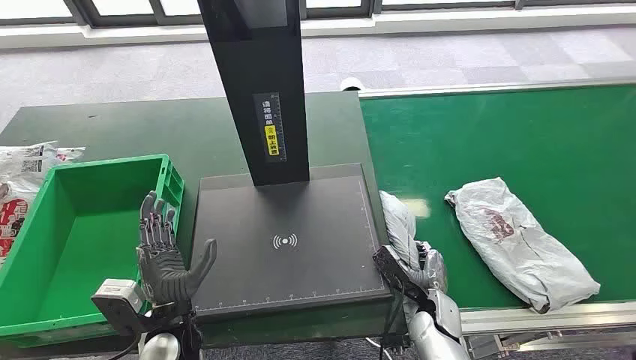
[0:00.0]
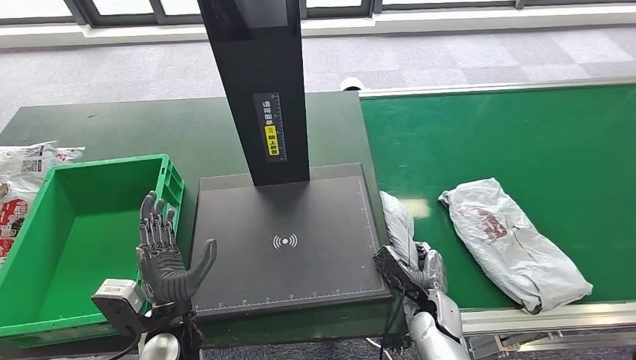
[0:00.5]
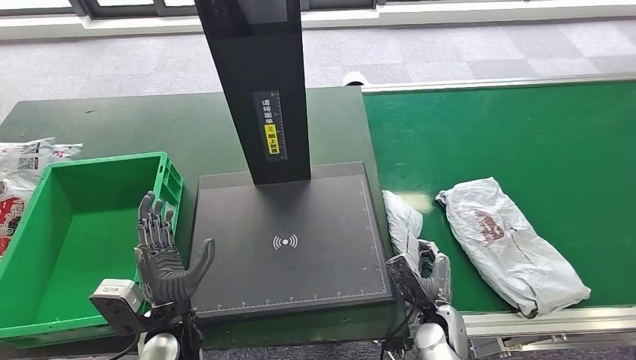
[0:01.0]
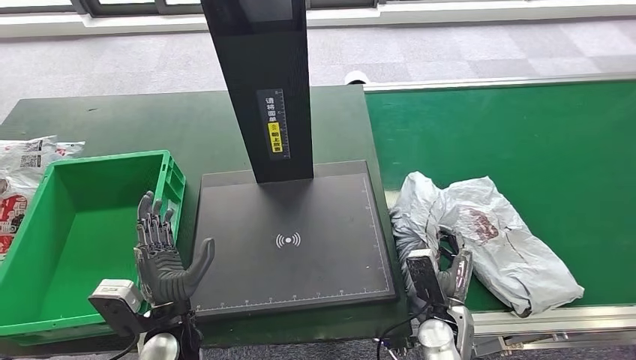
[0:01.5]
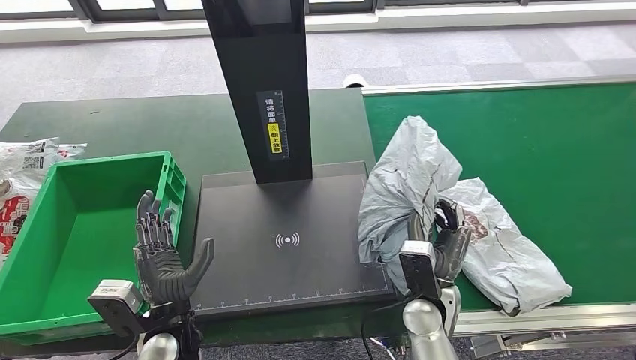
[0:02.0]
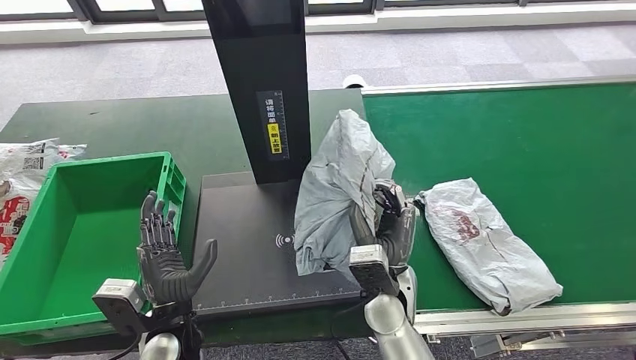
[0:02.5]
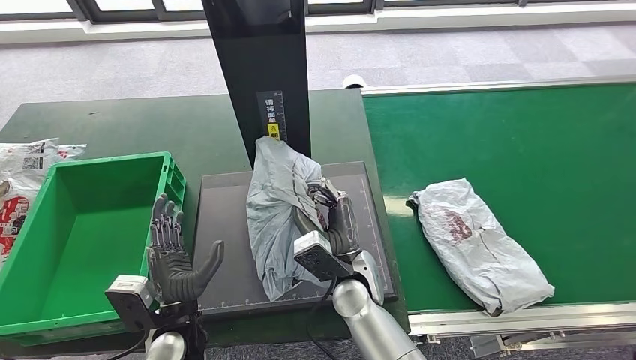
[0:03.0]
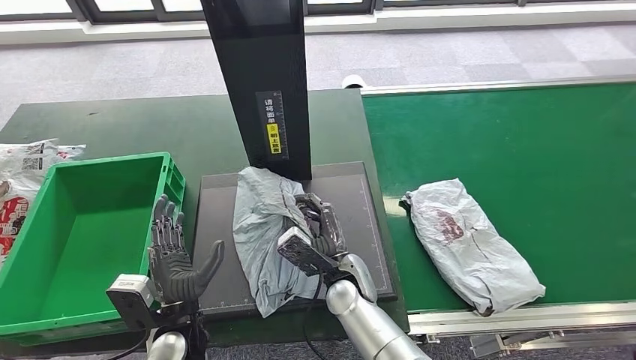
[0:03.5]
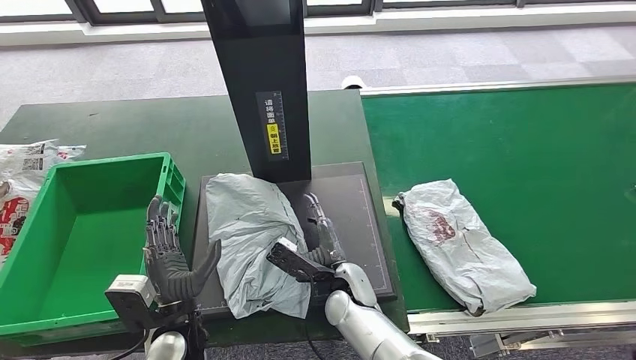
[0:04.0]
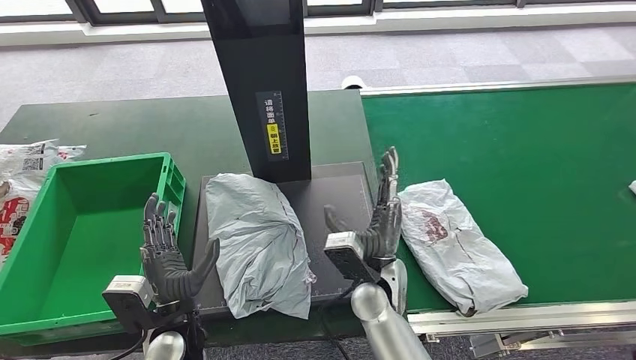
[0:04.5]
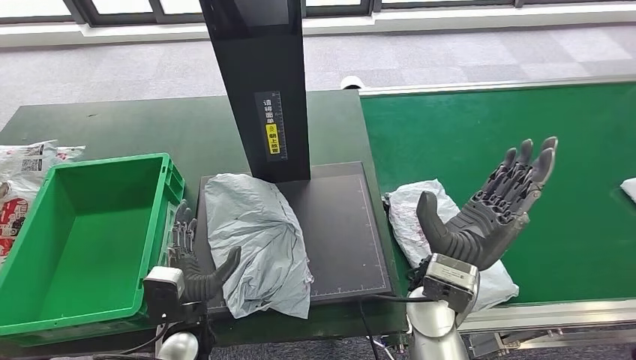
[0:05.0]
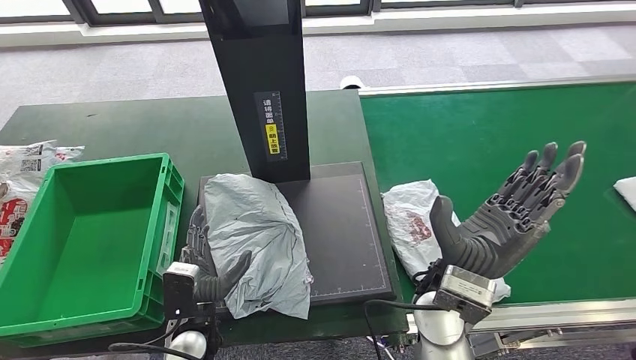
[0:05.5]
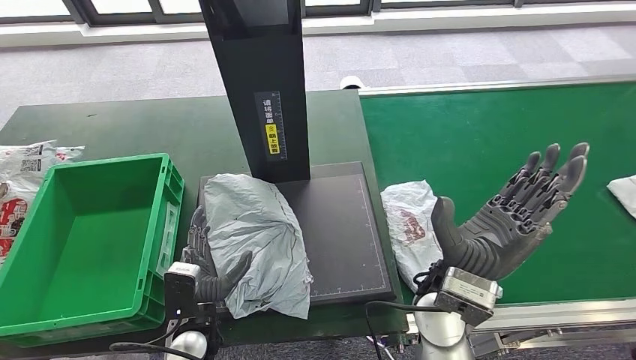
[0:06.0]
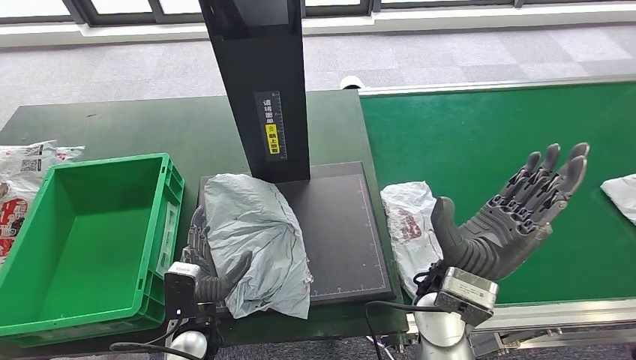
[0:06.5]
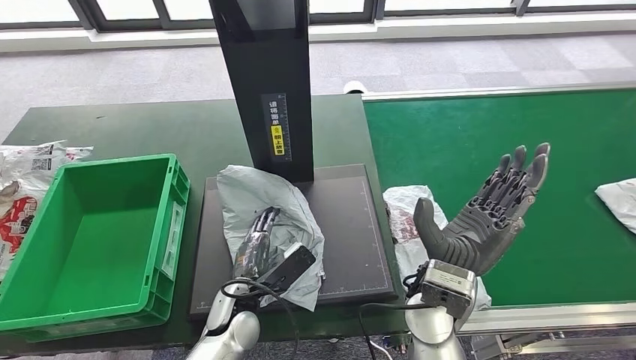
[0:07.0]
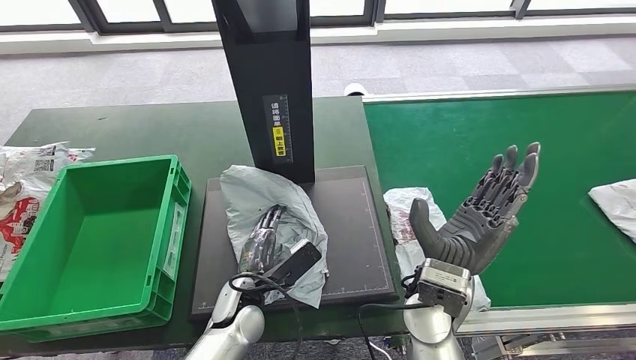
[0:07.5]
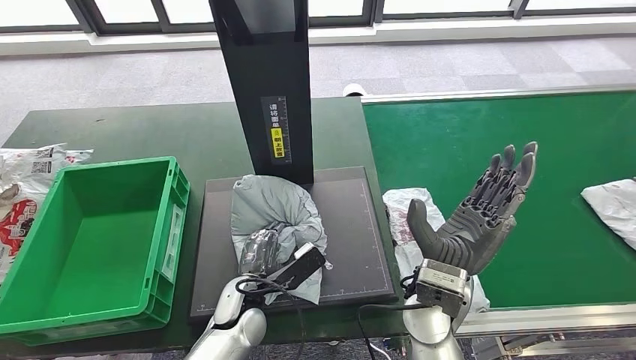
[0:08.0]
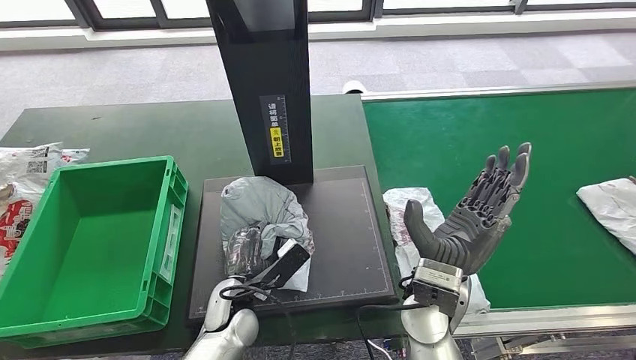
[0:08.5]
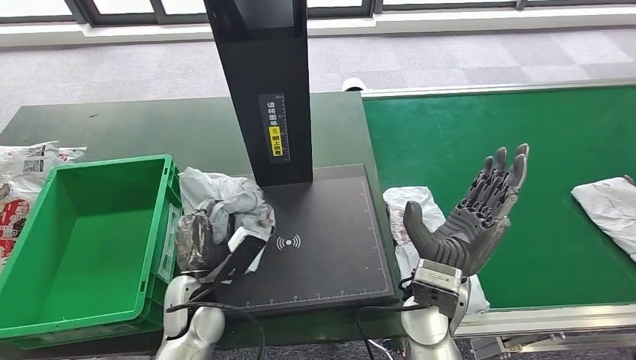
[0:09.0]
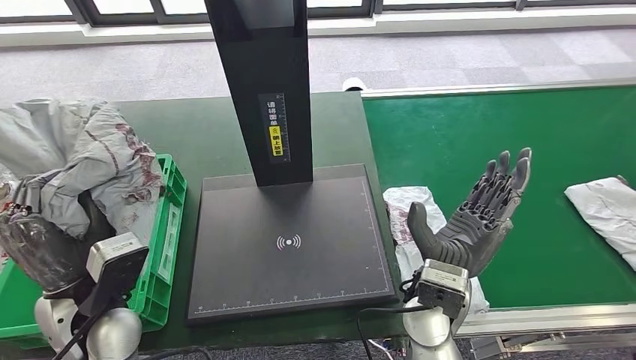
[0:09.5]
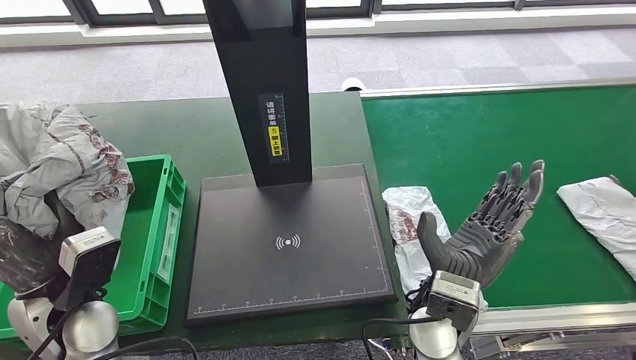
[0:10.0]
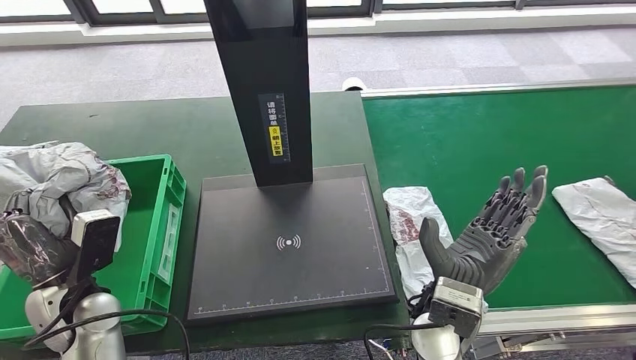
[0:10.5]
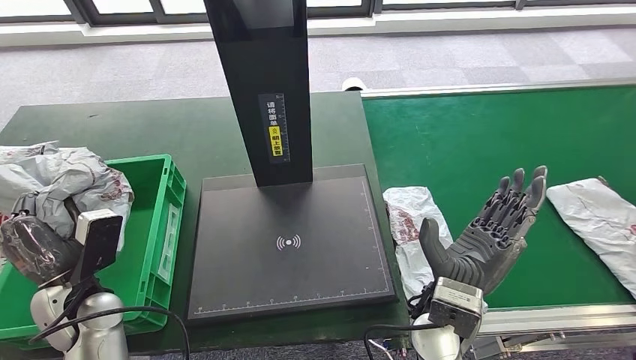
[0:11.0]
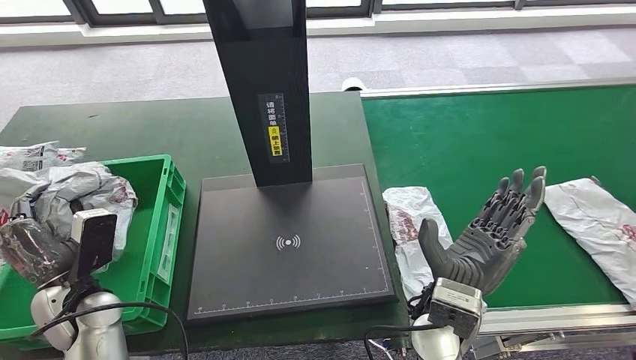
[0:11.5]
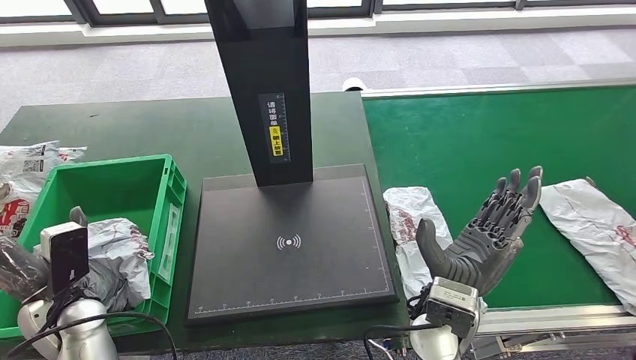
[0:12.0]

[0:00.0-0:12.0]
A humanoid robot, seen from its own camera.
Step, 0:00.0 to 0:01.5: Take the parcel off the conveyor belt.
Step, 0:02.0 to 0:04.0: Place the parcel onto the inbound machine.
Step, 0:09.0 to 0:10.5: Pick up the parcel from the inbound machine.
0:04.0 to 0:06.0: The right hand is displaced upward and to the right by about 20 cm.
0:10.0 to 0:12.0: The left hand goes roughly 10 cm downward and to the left.

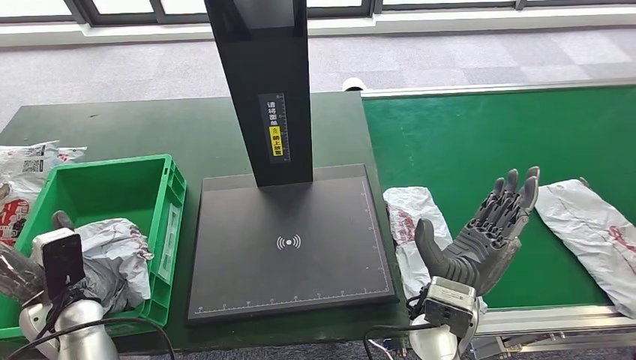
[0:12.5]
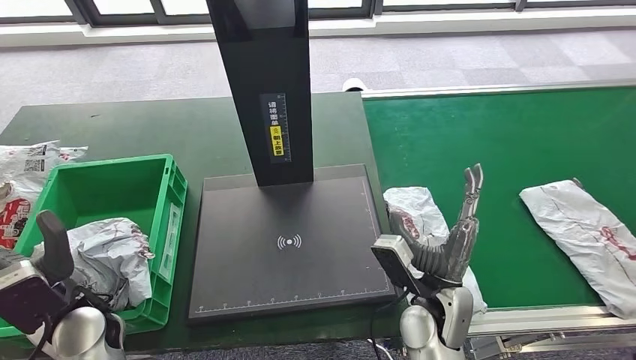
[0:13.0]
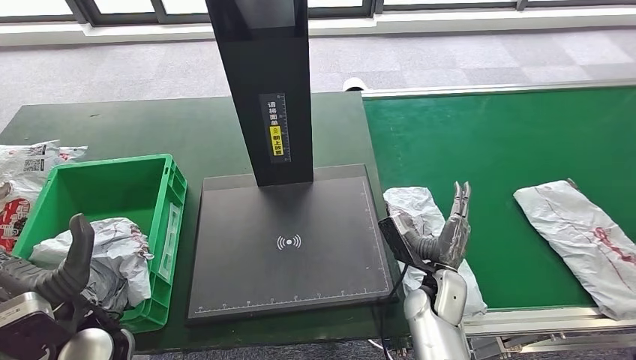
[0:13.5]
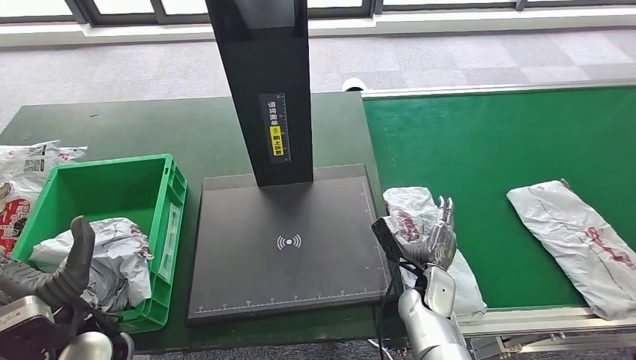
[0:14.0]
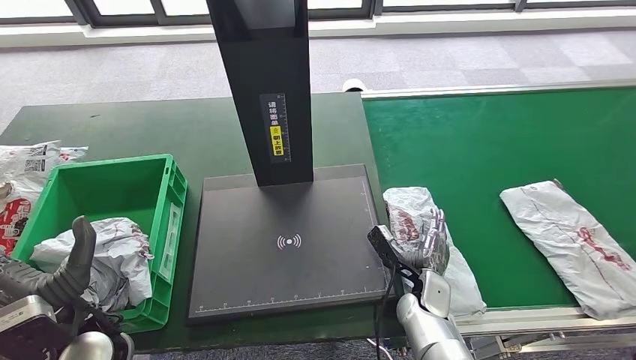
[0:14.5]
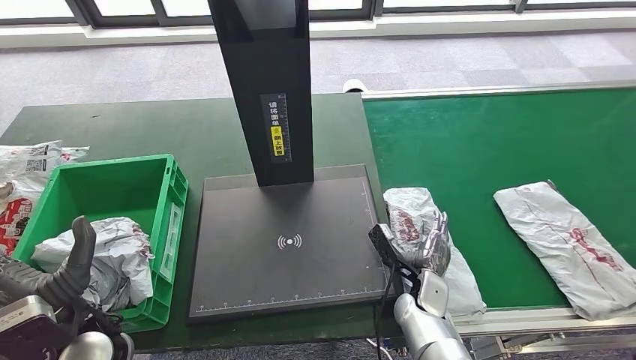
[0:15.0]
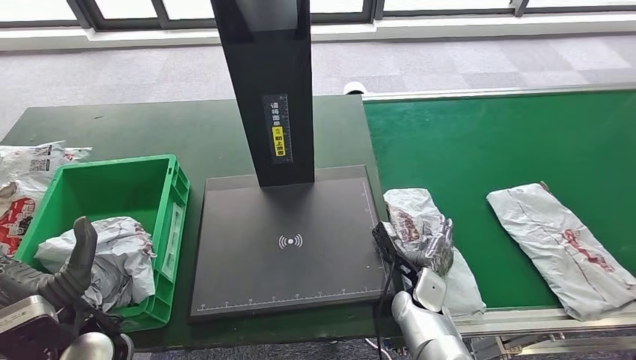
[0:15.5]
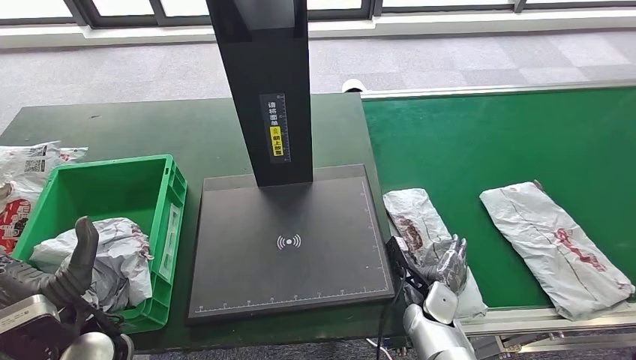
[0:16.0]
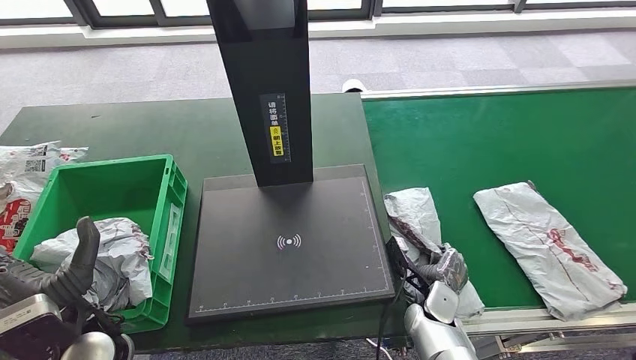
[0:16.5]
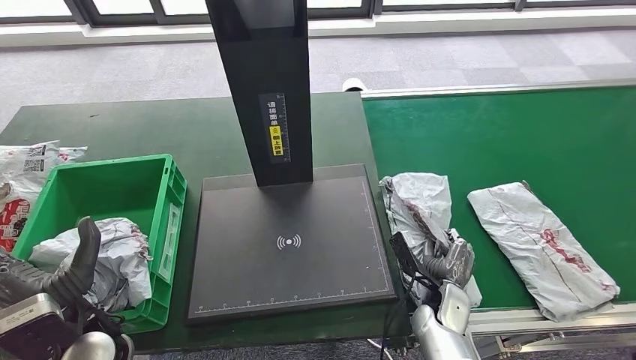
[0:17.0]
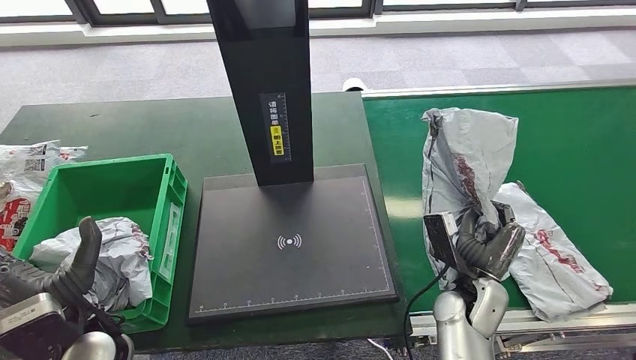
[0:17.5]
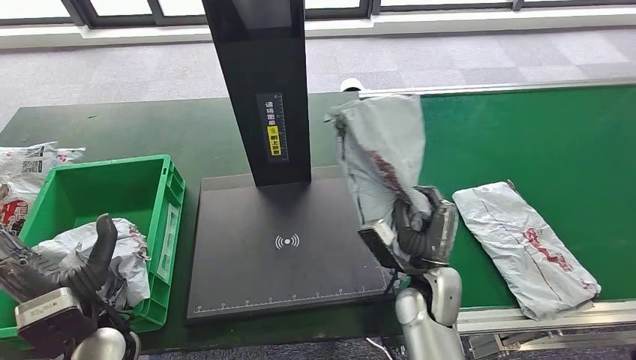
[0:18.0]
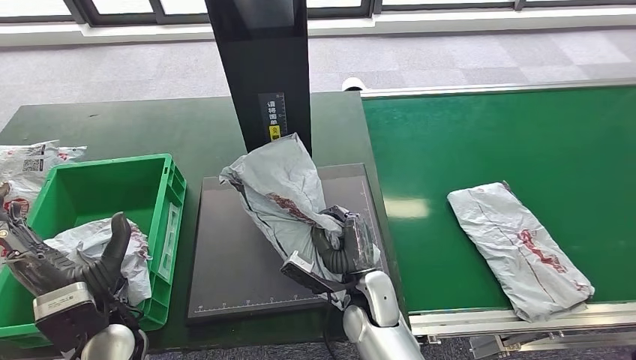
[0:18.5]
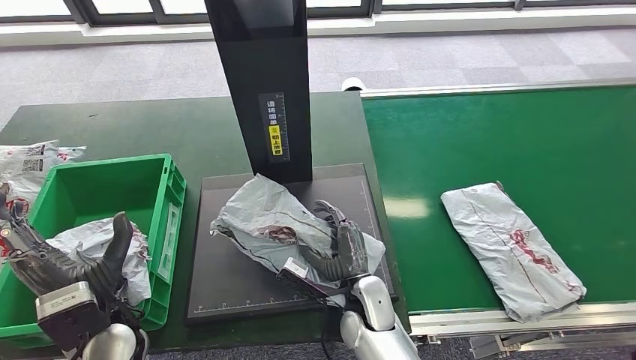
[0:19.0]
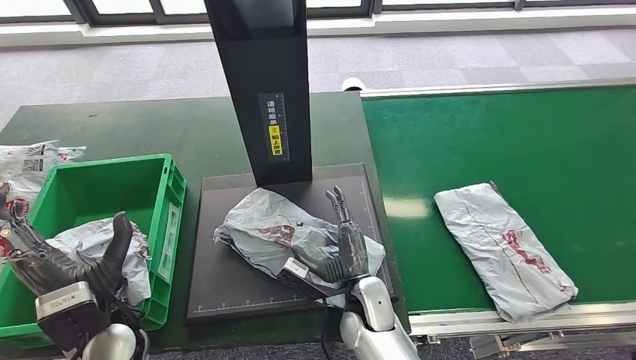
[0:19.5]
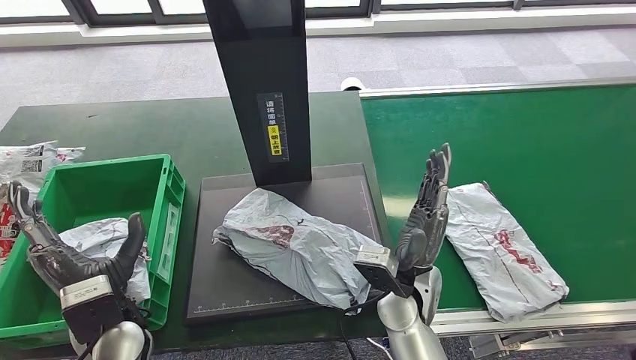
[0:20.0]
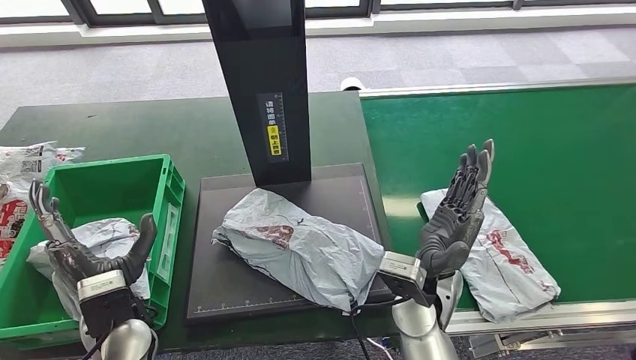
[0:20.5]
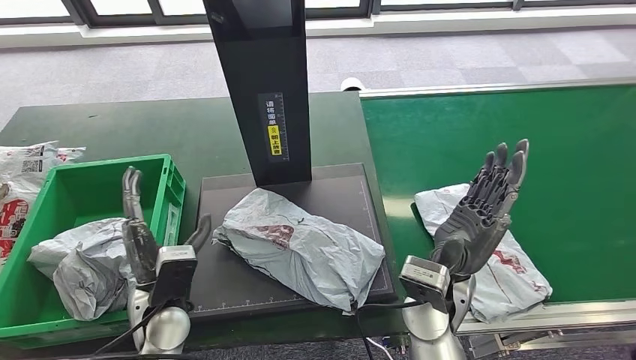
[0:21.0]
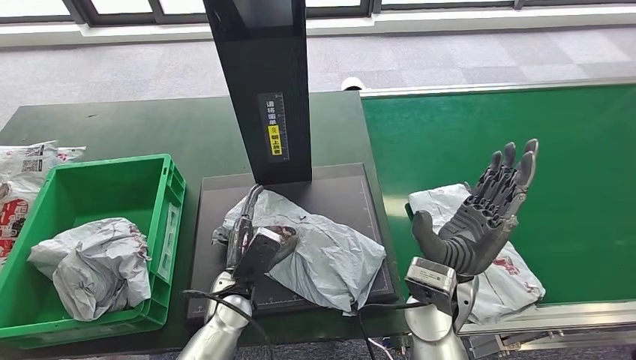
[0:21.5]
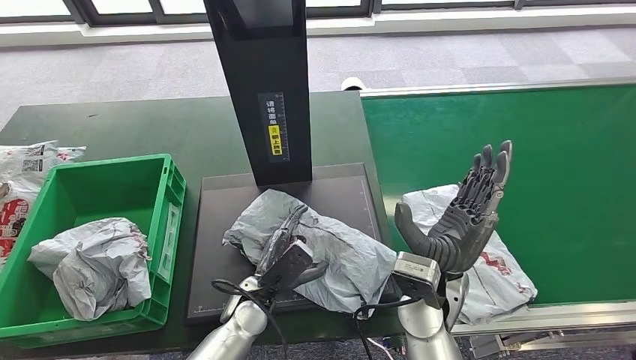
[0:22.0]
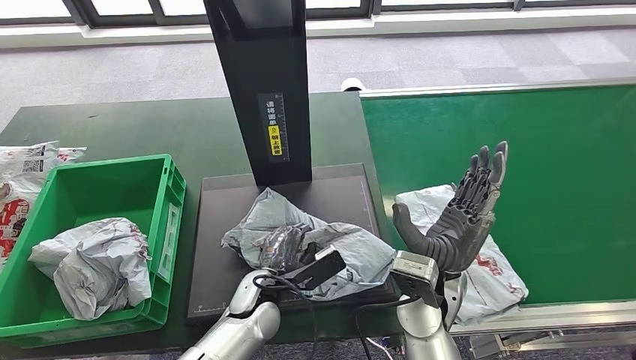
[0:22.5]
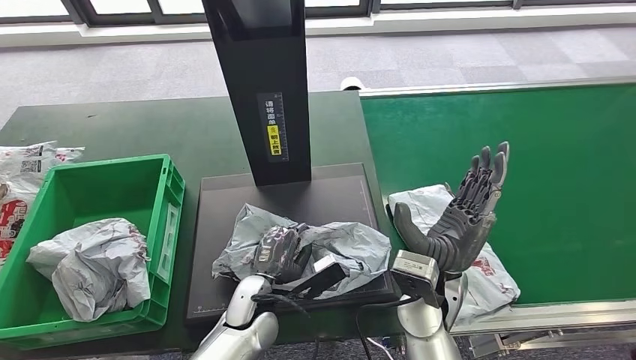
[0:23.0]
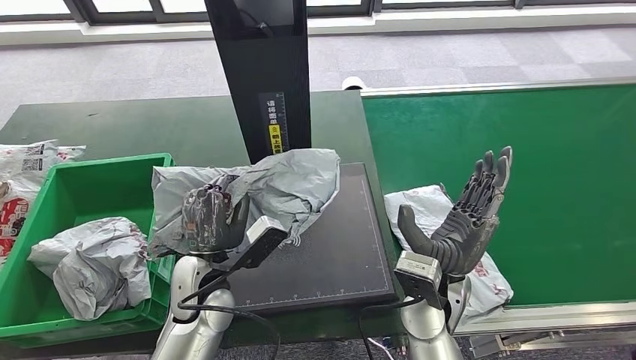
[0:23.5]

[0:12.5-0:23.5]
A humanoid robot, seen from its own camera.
Step, 0:13.5 to 0:17.5: Pick up the parcel from the conveyor belt.
Step, 0:18.0 to 0:20.5: Place the parcel onto the inbound machine.
0:12.5 to 0:14.5: The left hand moves to the right and upward, about 10 cm. Meanwhile the right hand shifts about 15 cm downward.
0:20.0 to 0:21.5: The right hand ends up roughly 5 cm from where it was. Meanwhile the left hand moves to the right and downward, approximately 15 cm.
